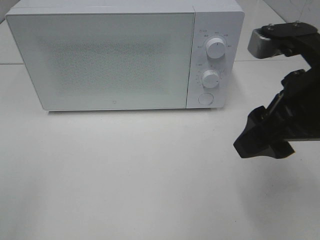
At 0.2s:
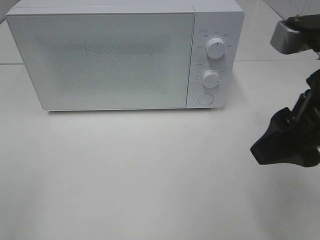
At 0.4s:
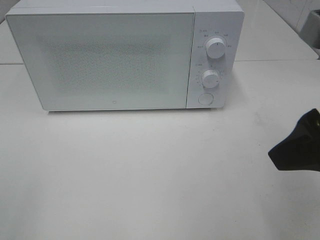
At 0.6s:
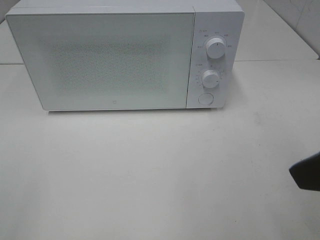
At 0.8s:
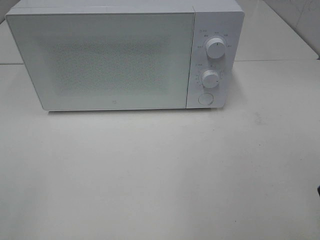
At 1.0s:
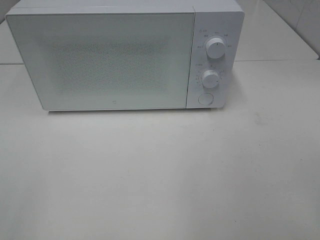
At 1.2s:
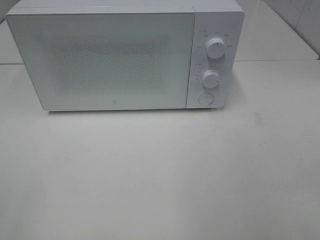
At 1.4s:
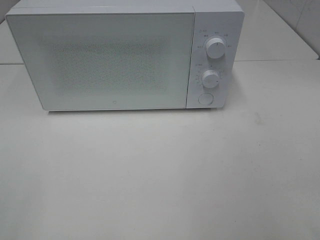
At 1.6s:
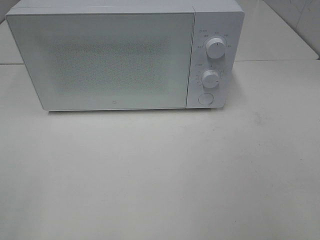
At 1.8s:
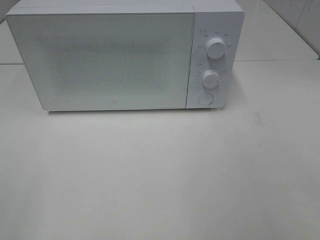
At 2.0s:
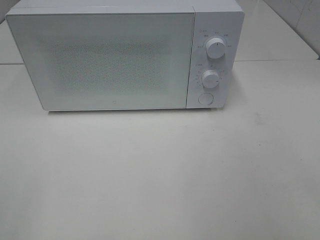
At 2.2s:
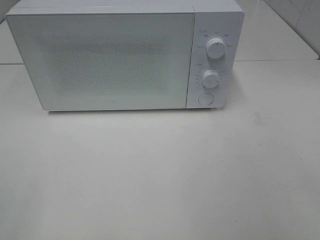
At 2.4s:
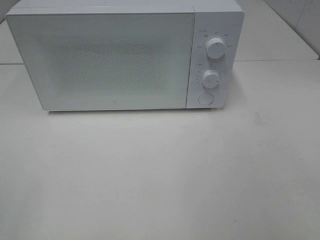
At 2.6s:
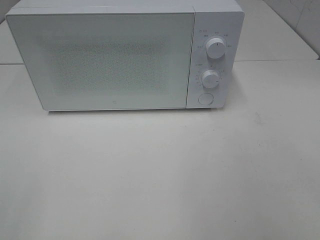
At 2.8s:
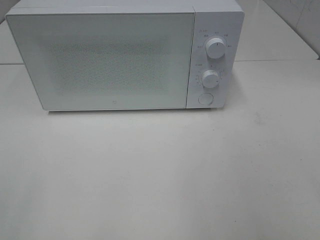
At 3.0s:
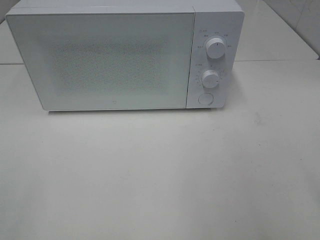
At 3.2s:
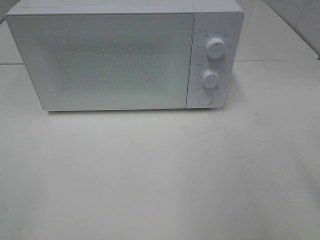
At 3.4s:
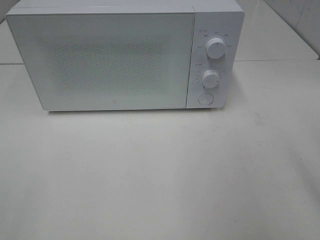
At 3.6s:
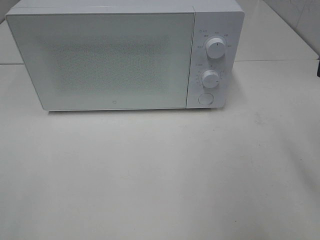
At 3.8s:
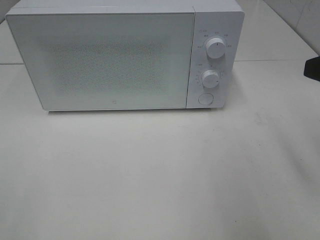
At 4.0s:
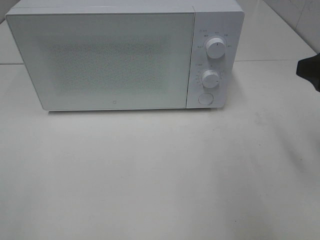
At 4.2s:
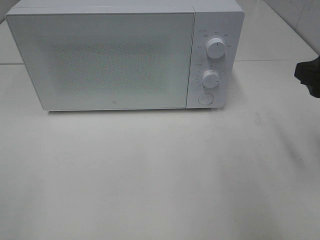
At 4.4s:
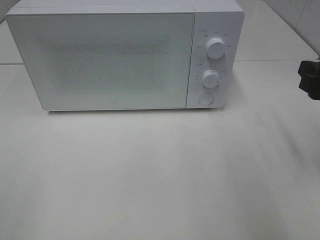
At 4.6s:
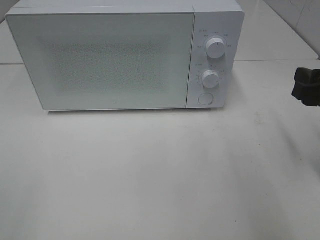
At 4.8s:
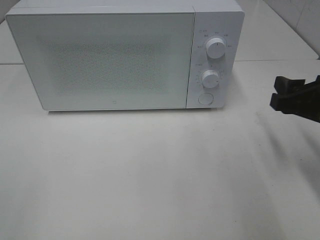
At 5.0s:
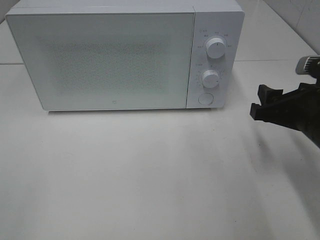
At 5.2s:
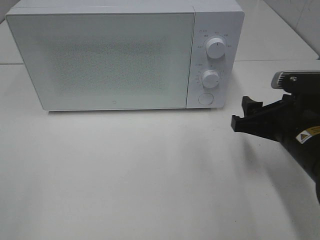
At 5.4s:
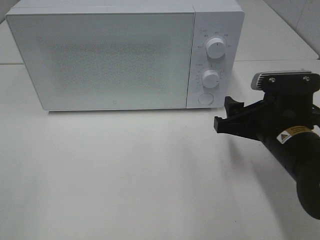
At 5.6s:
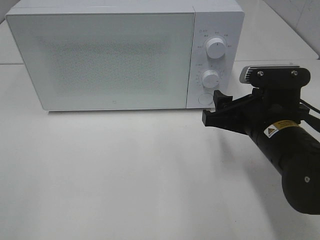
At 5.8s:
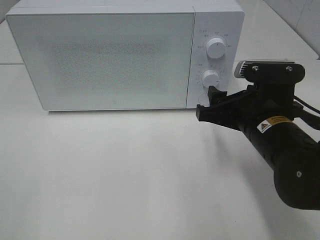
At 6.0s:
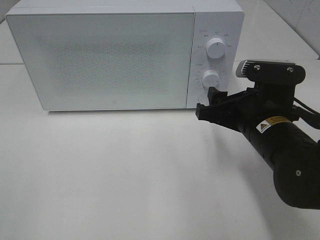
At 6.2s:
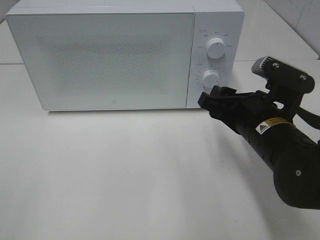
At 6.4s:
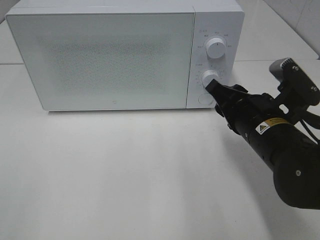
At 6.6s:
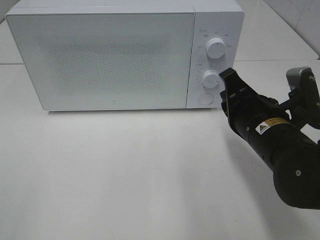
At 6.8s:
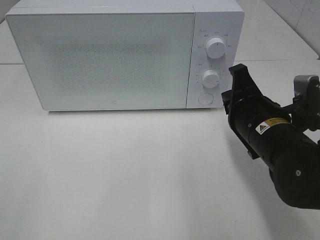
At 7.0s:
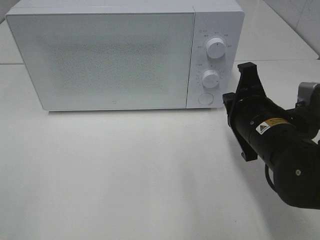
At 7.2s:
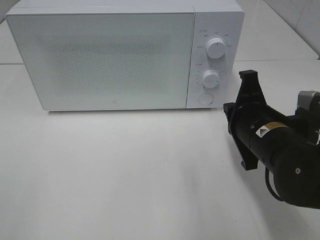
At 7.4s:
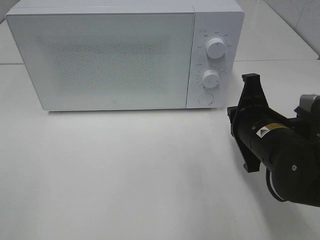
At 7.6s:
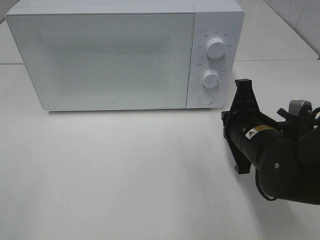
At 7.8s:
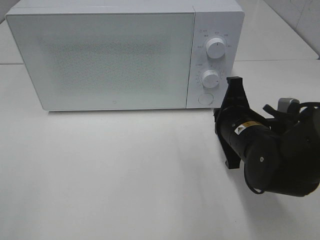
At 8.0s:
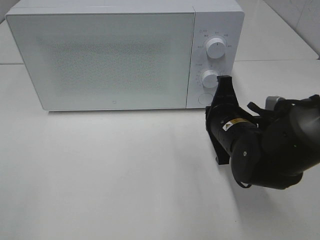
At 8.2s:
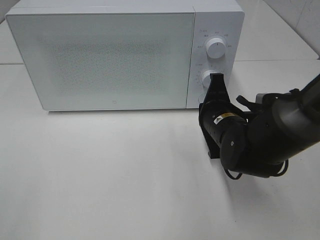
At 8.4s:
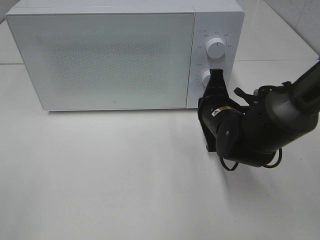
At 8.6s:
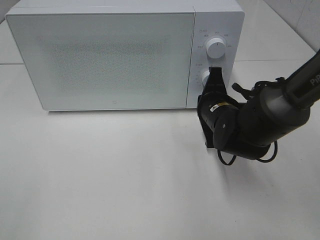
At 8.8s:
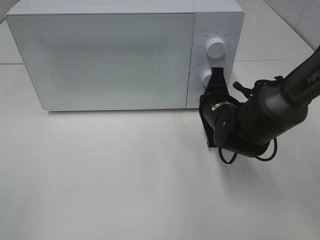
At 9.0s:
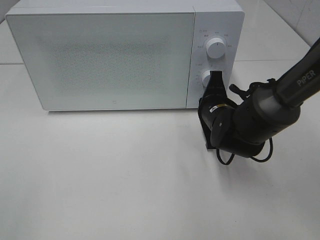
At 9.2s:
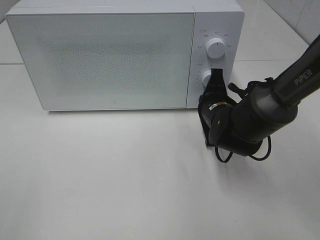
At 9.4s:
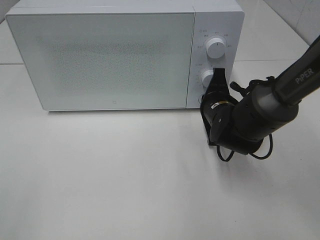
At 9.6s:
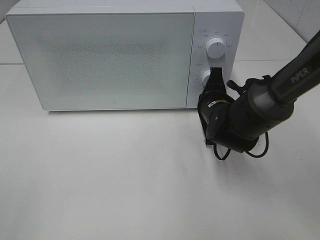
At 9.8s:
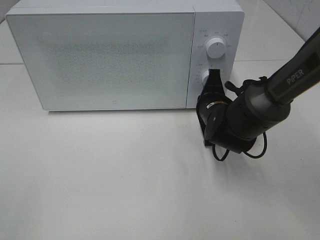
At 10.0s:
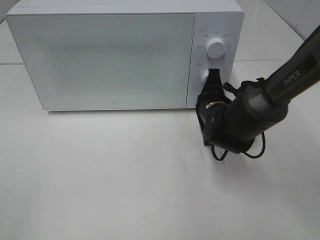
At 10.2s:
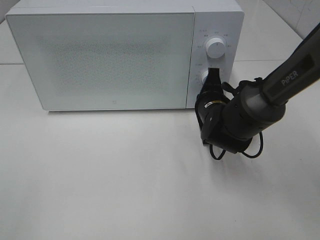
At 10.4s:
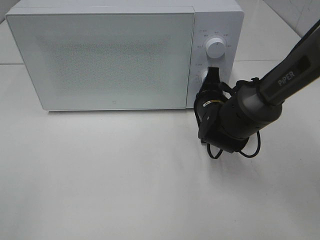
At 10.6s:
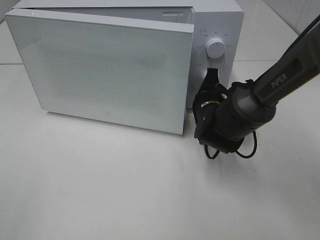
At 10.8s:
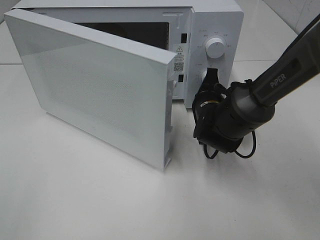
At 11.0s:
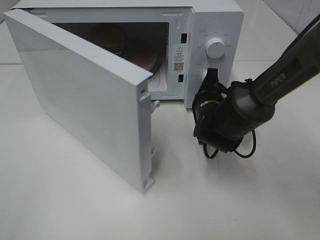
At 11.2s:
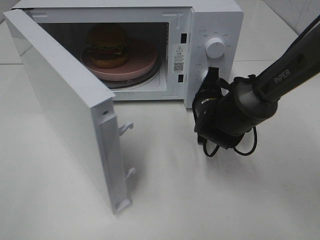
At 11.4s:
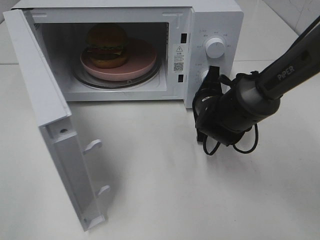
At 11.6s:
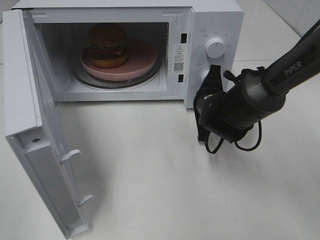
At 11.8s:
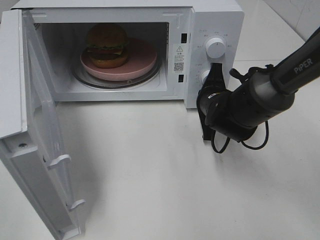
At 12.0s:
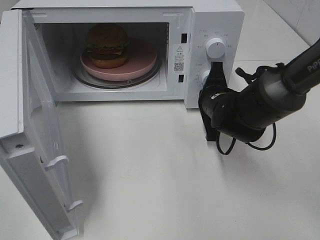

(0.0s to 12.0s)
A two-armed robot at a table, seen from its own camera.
Task of the whole recording: Heat the burger.
0.0s - 1.6s: The right gripper travels backward and to the right by roughly 20 cm.
3.0s - 4.4s: The right gripper moves forward and downward, some 20 cm.
4.4s - 6.0s: The right gripper shifts roughly 15 cm to the left and downward.
6.0s - 7.6s: The right gripper closes.
7.6s - 9.0s: The right gripper travels forward by roughly 10 cm.
9.0s - 10.4s: The grippers move only a little.

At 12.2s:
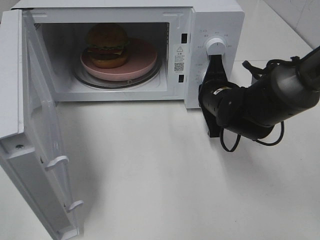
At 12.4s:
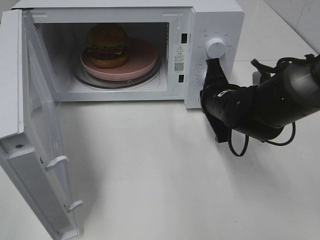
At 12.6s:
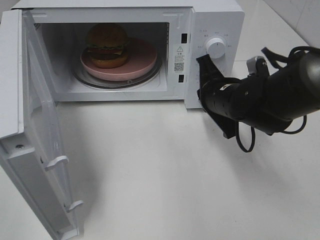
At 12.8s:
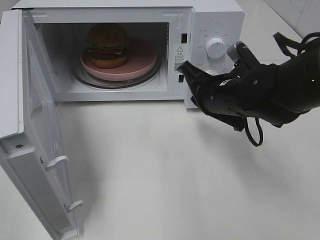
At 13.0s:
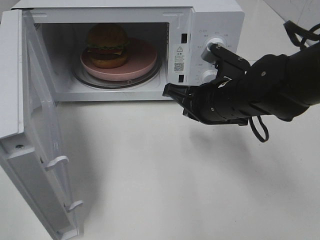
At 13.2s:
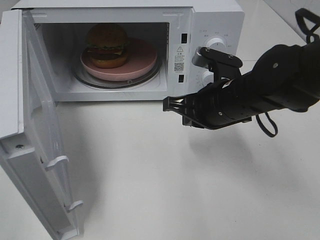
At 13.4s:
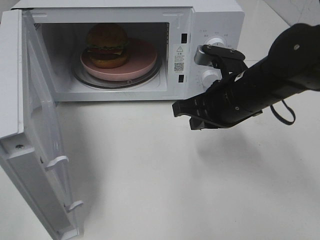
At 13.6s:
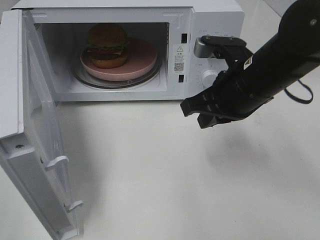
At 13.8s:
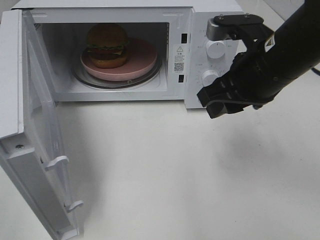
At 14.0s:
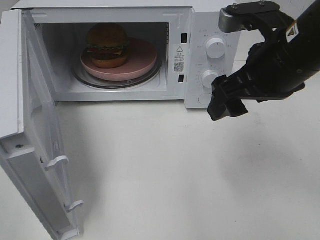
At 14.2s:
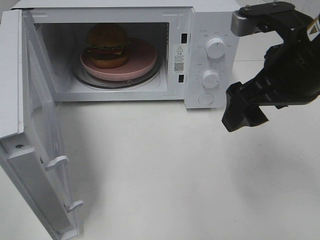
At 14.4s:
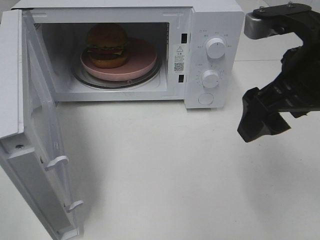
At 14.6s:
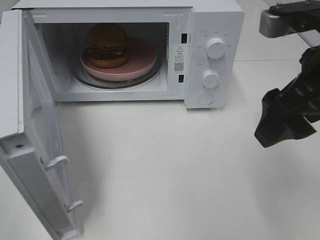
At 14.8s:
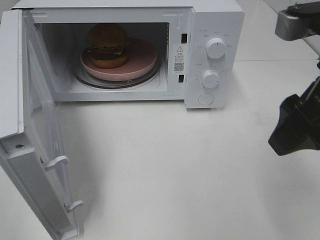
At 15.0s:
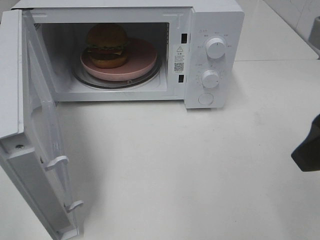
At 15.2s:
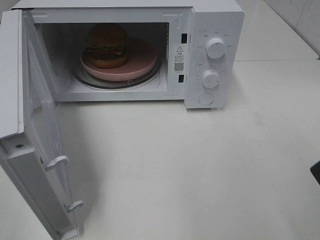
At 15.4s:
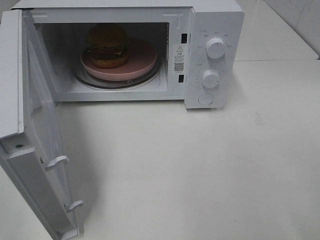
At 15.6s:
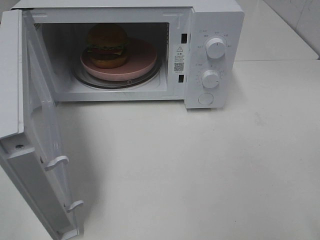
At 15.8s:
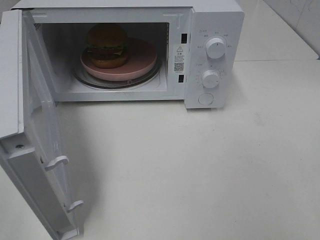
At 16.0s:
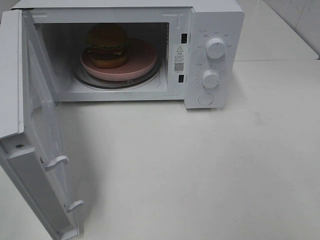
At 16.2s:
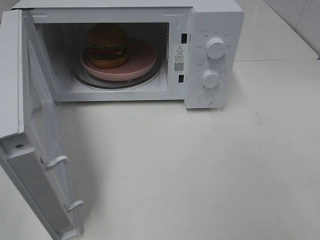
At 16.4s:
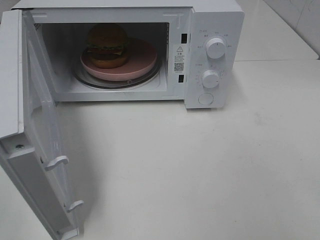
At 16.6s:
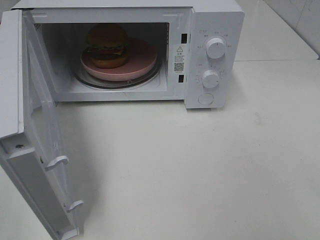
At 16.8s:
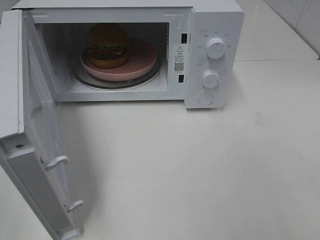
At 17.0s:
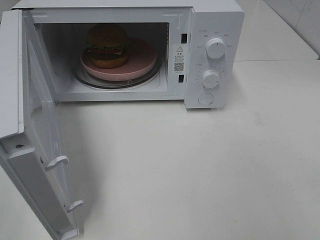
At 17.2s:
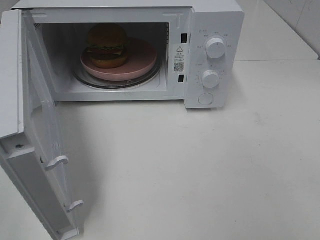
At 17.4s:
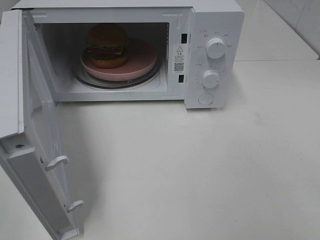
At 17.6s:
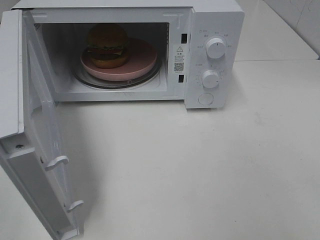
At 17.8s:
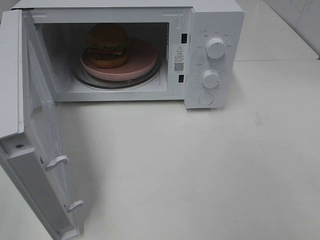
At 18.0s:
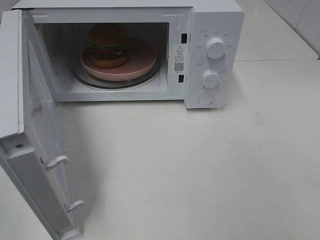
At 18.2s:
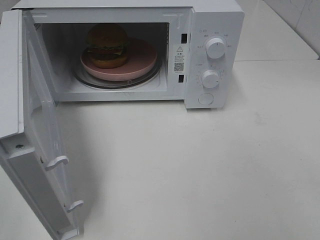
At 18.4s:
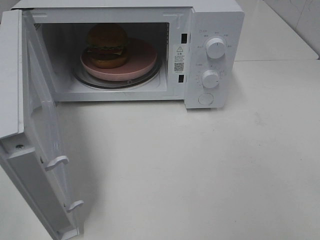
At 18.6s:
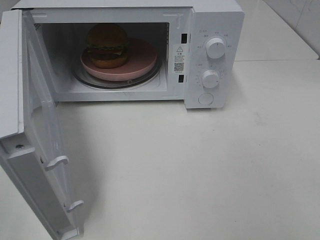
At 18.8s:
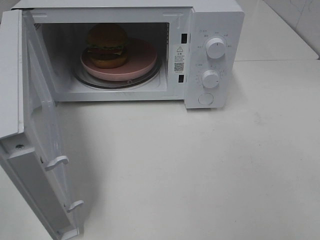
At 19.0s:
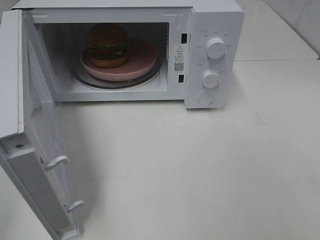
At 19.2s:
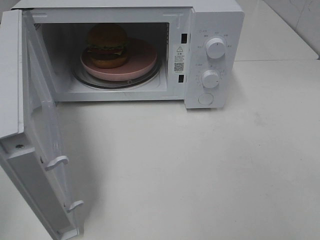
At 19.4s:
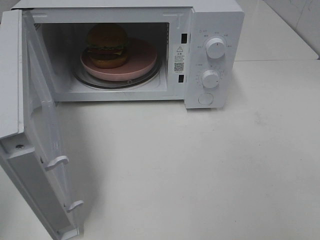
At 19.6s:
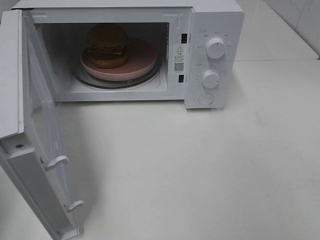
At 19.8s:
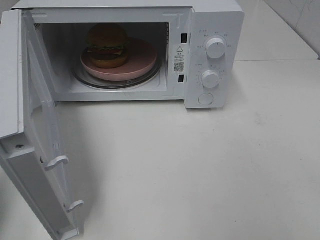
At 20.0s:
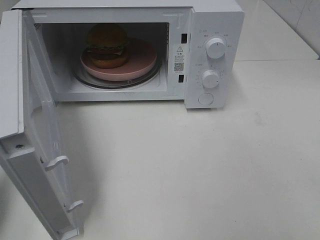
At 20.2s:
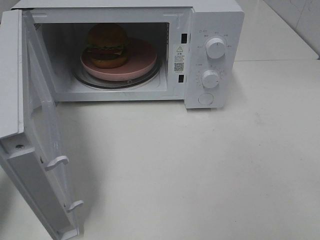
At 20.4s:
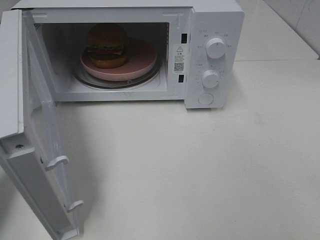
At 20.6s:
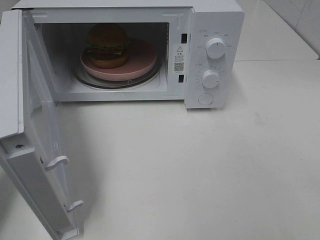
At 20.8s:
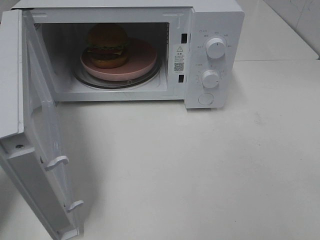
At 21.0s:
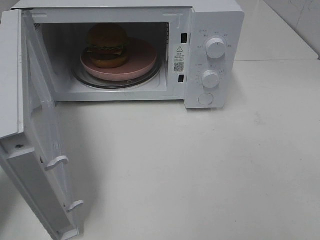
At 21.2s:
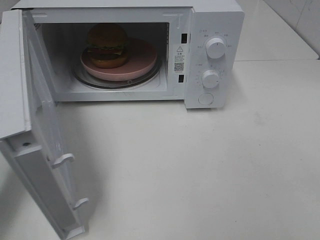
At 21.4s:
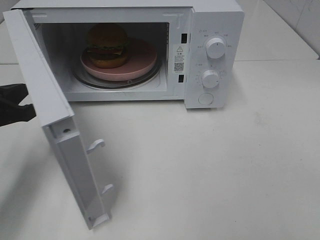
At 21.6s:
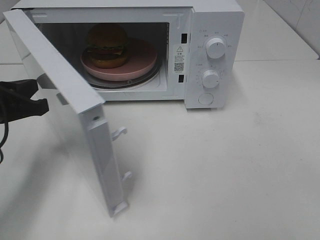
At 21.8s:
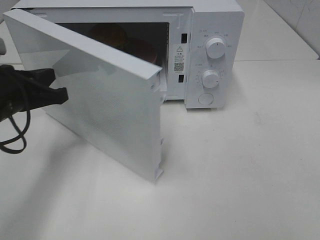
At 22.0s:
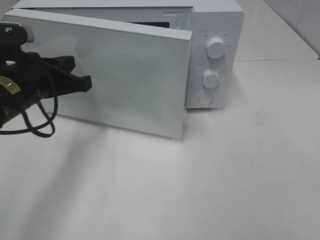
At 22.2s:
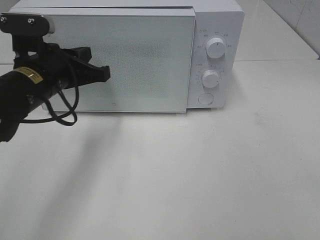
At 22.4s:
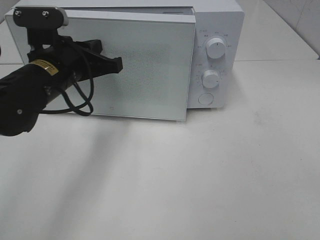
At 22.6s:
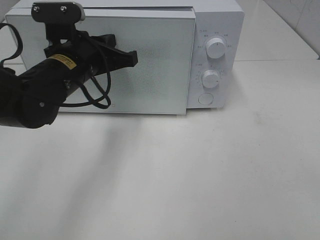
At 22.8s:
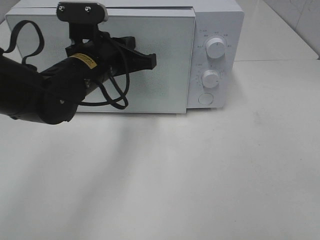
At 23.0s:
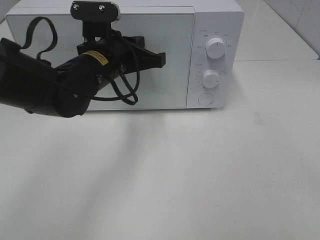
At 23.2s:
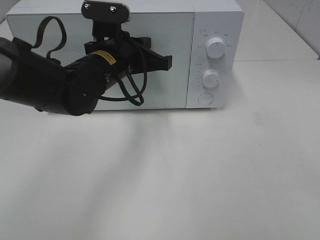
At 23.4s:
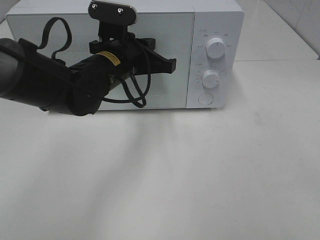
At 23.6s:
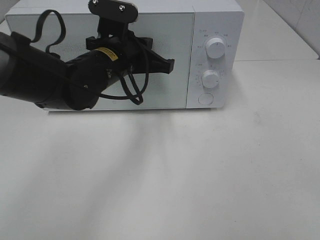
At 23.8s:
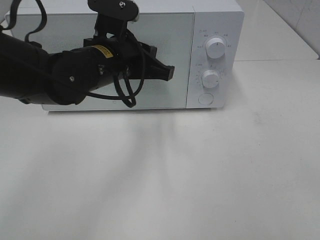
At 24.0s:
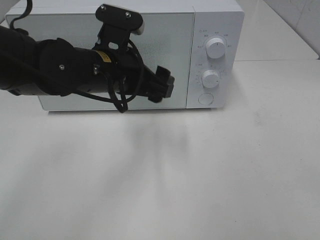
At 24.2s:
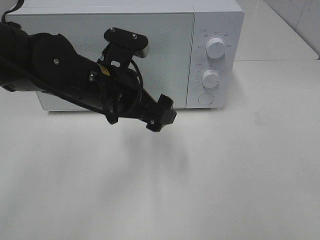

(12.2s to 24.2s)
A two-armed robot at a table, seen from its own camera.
Task of the whole recording: Heat the burger.
Step, 12.2s - 23.6s: Left hand: close the microwave door.
12.2s - 13.8s: The right gripper travels upward and backward by some 15 cm, and opens its fingers.
13.8s - 15.2s: The right gripper heads backward, to the right and upward, covering roughly 20 cm.
16.6s - 18.2s: Both grippers stay about where they are.
18.2s - 19.8s: The left gripper shifts some 10 cm forward, and closes up.
19.8s - 21.2s: The left gripper moves forward and downward, approximately 15 cm.
21.2s - 22.6s: The left gripper is displaced to the right and forward by about 20 cm.
22.6s - 24.2s: The left gripper shifts by about 5 cm, and opens up.
